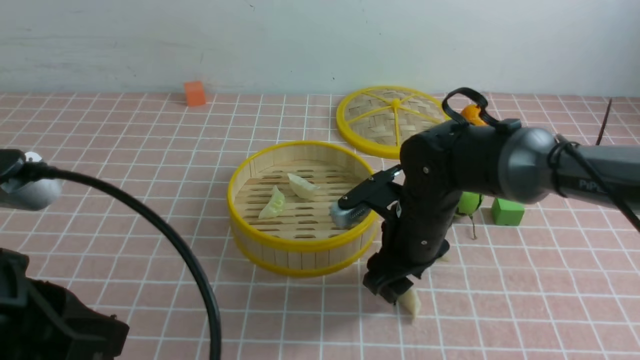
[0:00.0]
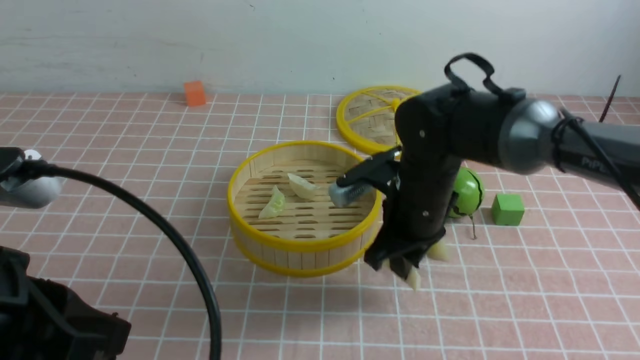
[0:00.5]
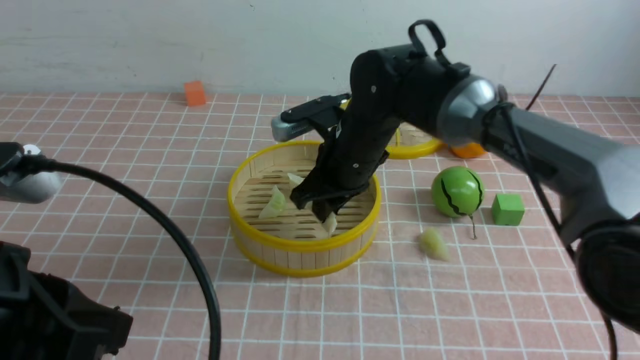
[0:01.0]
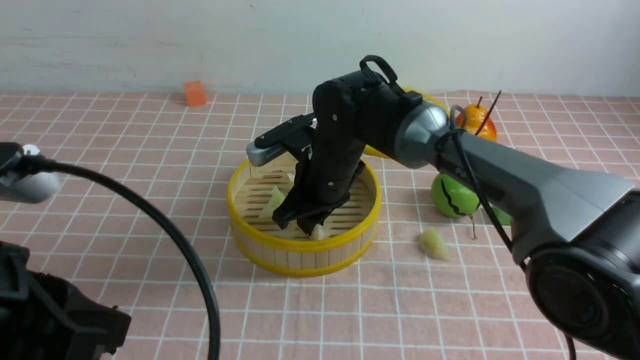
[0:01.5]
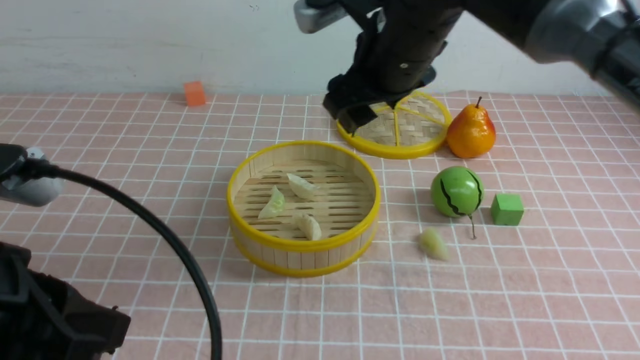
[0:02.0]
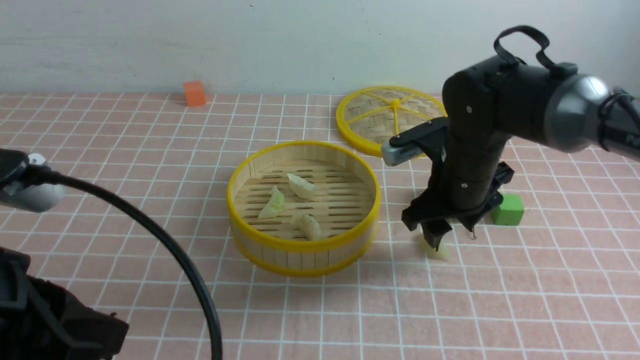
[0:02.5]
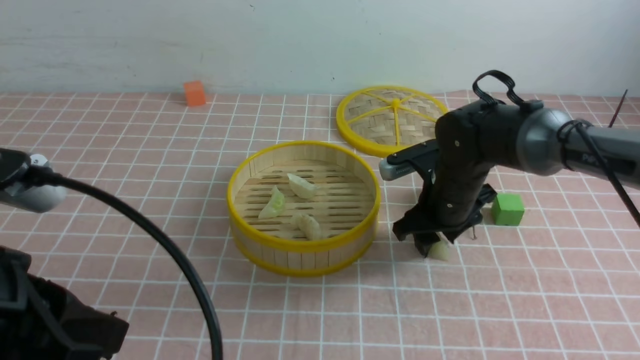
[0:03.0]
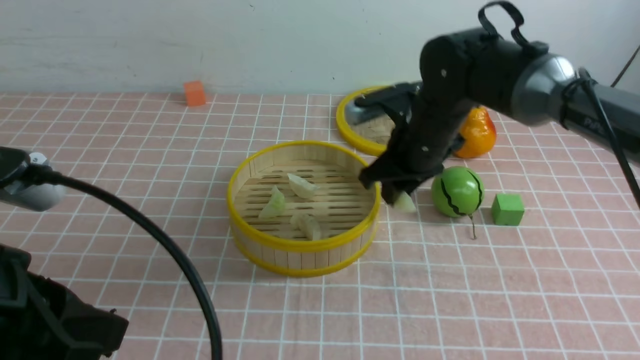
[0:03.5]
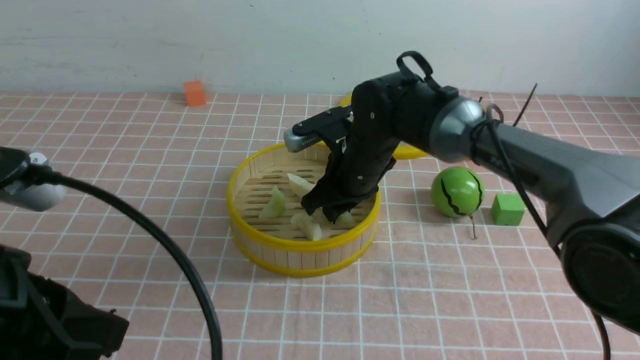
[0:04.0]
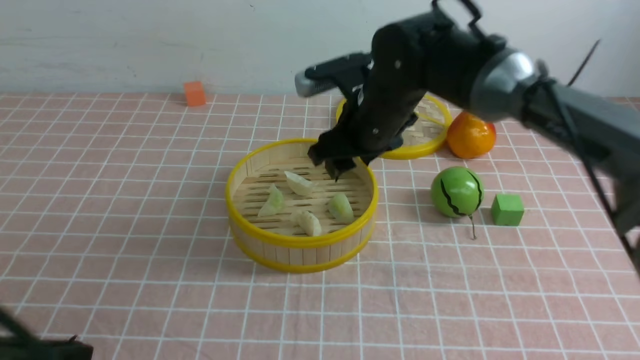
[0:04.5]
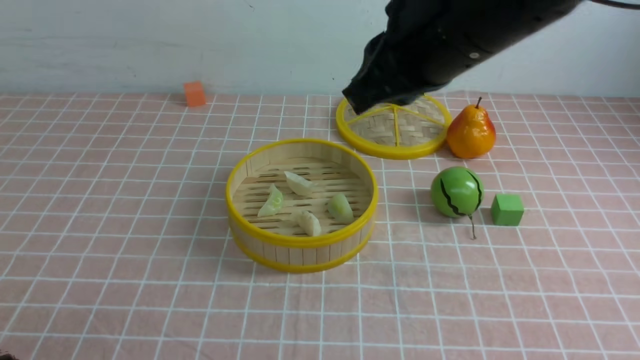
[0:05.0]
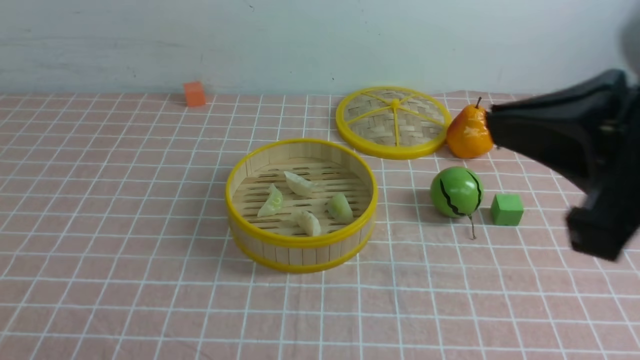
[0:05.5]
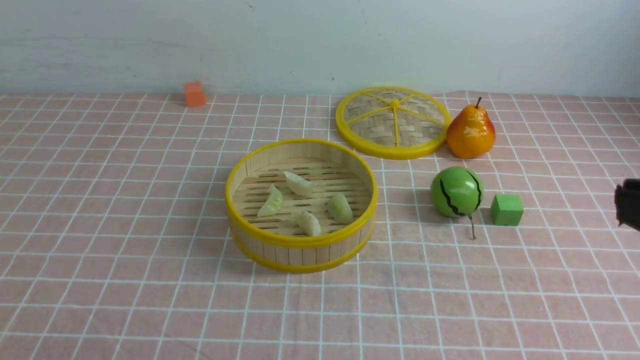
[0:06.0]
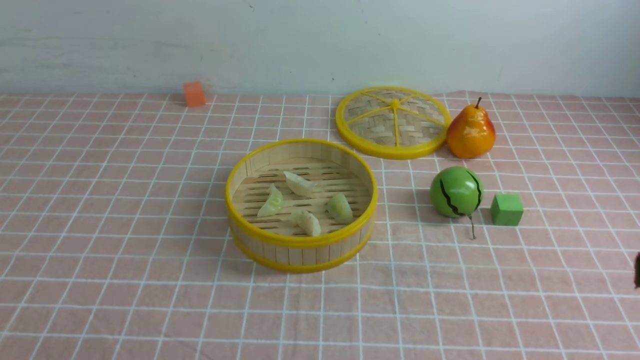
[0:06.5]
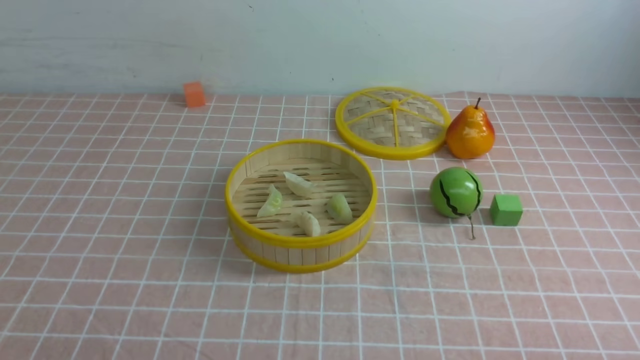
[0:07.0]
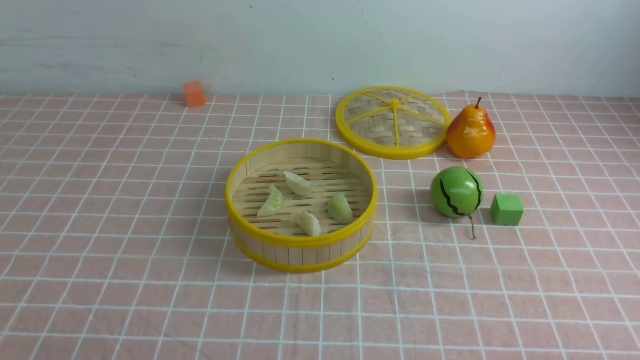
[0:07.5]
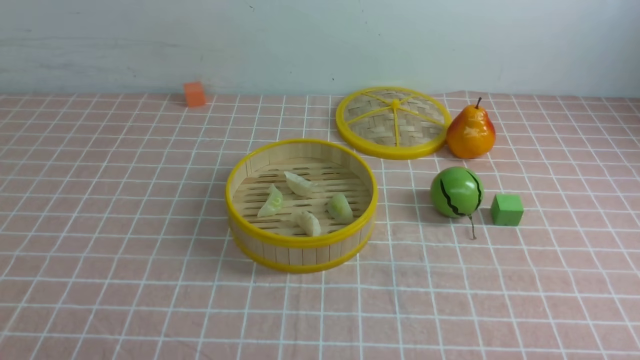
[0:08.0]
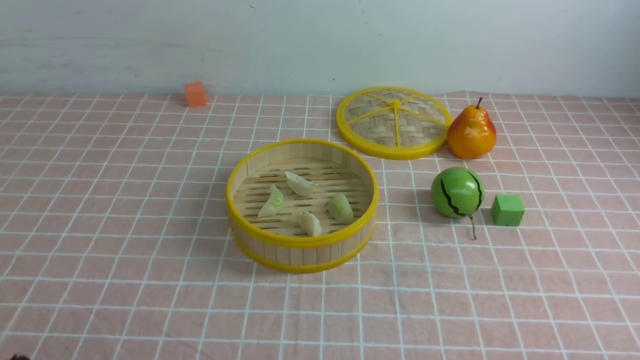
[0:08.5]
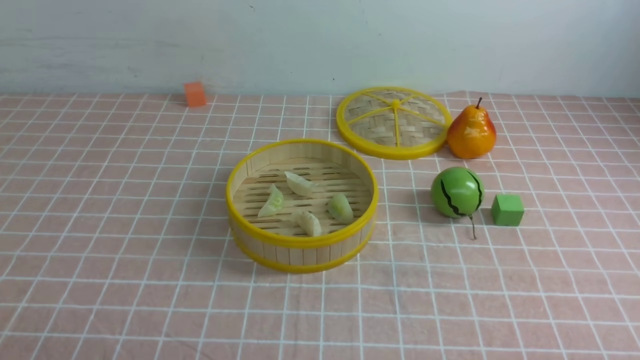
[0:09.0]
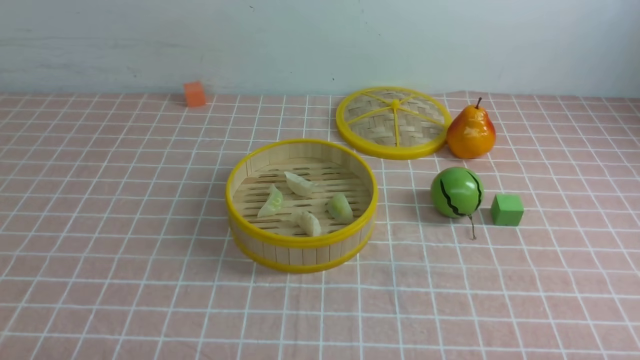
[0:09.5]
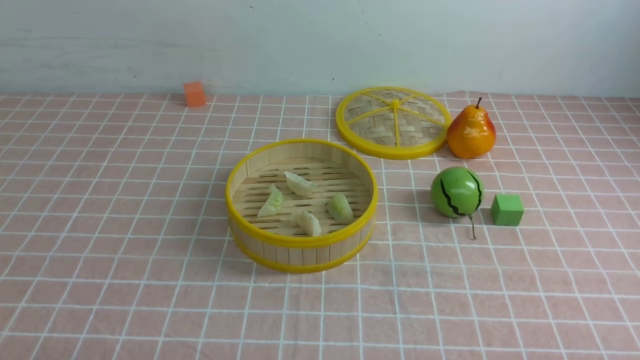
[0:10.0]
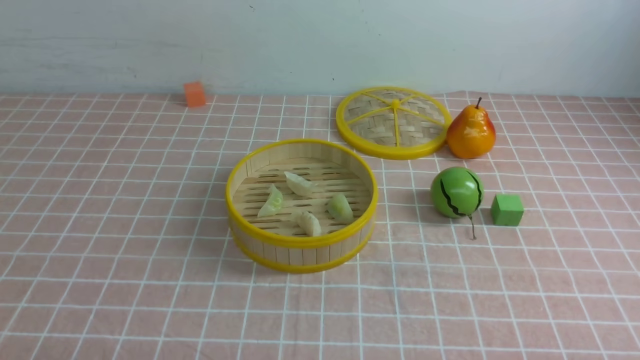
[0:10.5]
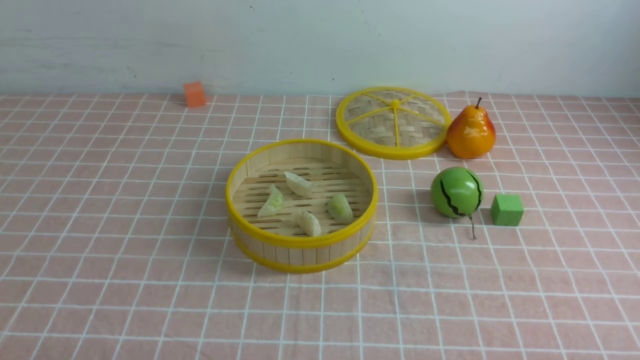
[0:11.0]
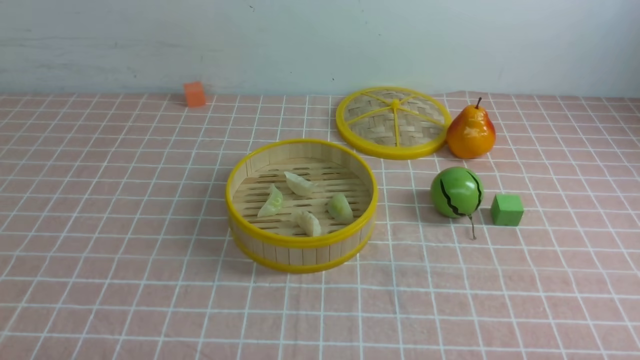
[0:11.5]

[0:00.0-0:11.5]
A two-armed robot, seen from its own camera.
Task of the whole recording: put the dumplings into the steamer on the table with the pink tablecloth.
Step, 0:00.5 to 0:01.5: use the right arm to put the dumpling into the steamer.
Step, 0:02.0 to 0:03.0: use the right arm to grab a dumpling.
Step, 0:03.5 to 0:04.5: use the right arm to put the dumpling into the steamer.
0:00.0 to 0:02.0: The right gripper travels upward by roughly 15 cm, and closes, then reopens.
0:02.0 to 0:04.0: The right gripper moves downward, some 15 cm, and closes.
0:04.0 to 0:06.0: The left gripper shifts roughly 10 cm backward and downward, while the right gripper heads backward, to the right and upward, covering approximately 40 cm, and closes up.
0:09.5 to 0:11.5: Neither gripper changes place.
